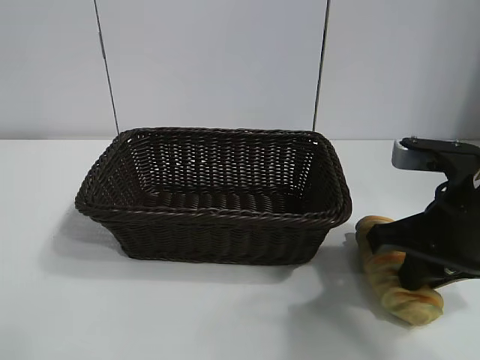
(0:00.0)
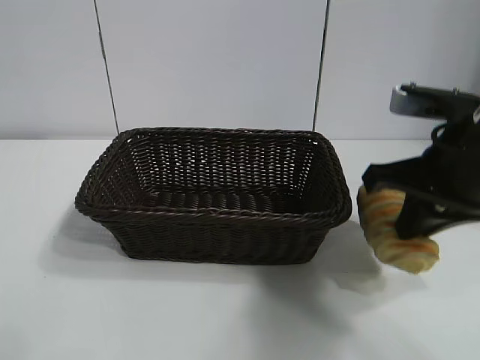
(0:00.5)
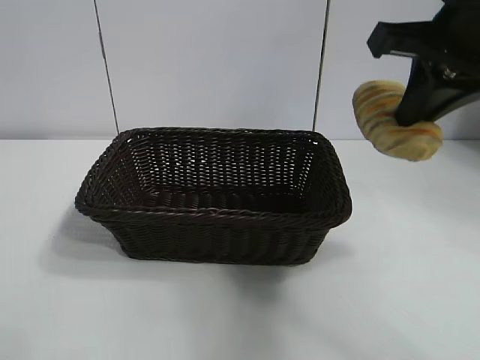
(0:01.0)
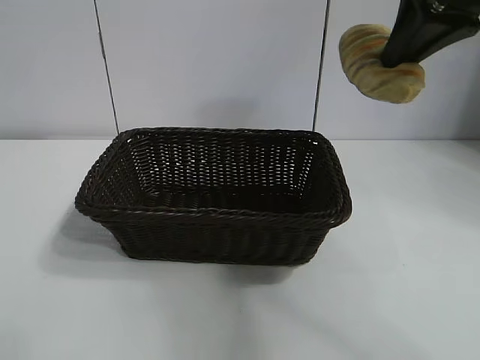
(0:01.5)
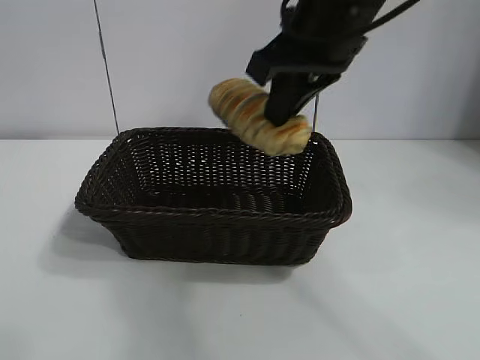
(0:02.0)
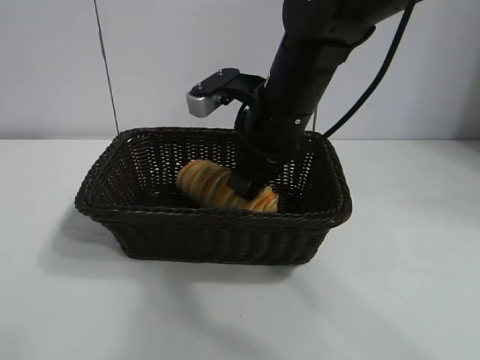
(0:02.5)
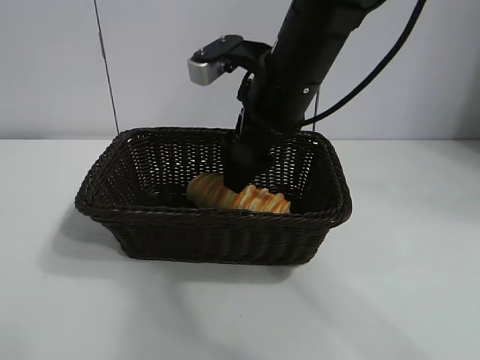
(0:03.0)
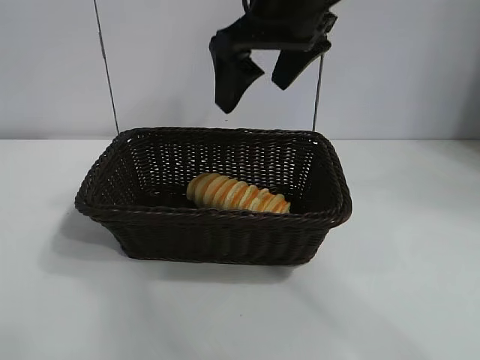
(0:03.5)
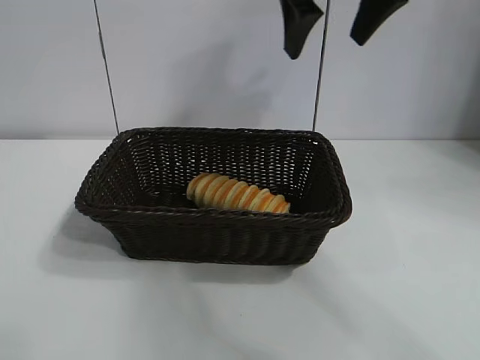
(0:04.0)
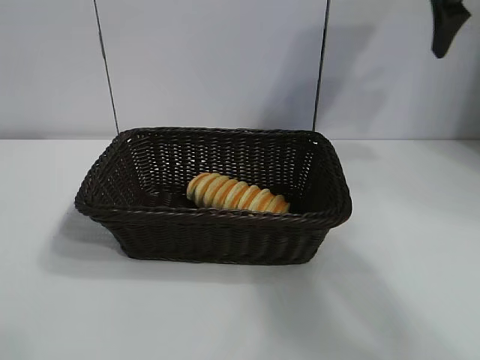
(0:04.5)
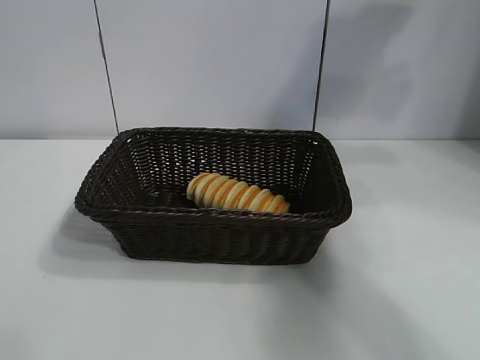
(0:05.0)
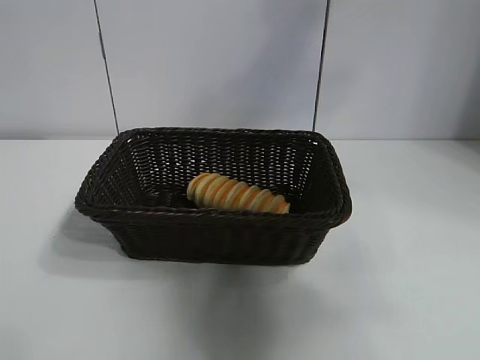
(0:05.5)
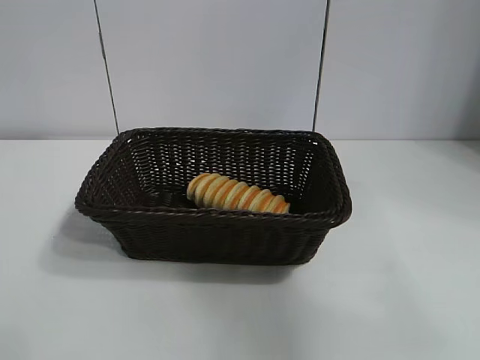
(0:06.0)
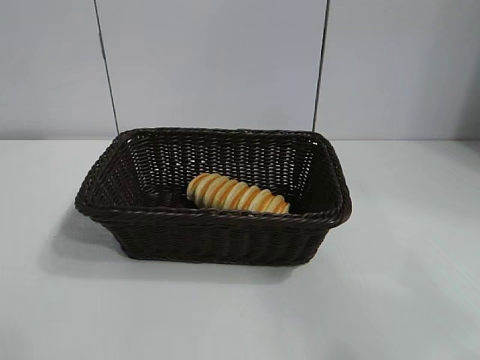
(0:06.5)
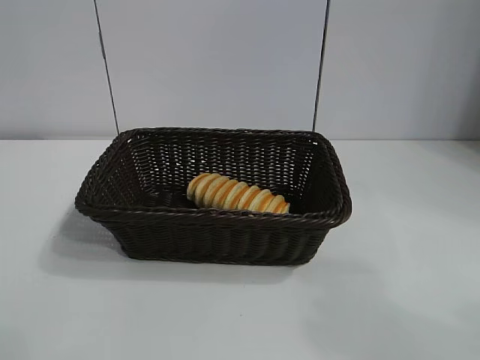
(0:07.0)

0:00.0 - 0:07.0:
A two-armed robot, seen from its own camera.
Task of the whole recording: pick up the long bread and put it into the basket.
Step, 0:00.5 - 0:03.0: Place the long bread in the basket with right gripper.
